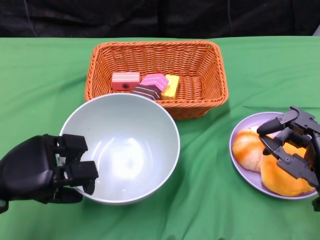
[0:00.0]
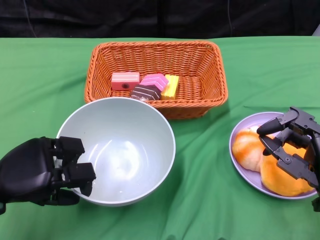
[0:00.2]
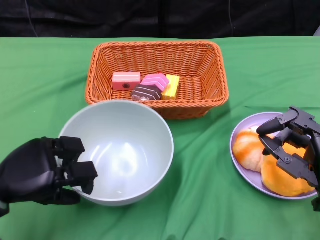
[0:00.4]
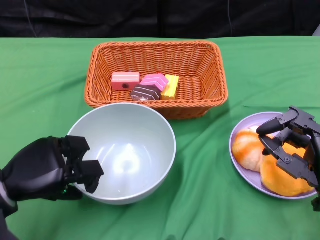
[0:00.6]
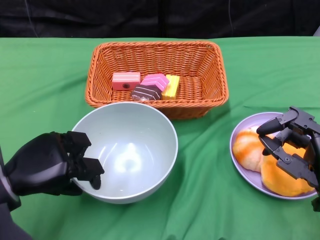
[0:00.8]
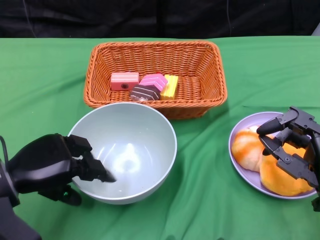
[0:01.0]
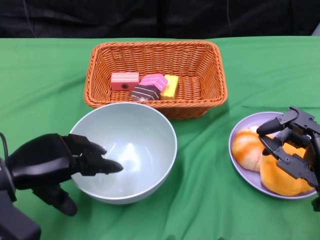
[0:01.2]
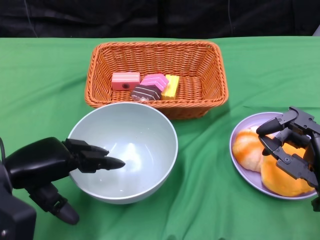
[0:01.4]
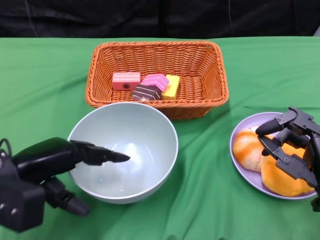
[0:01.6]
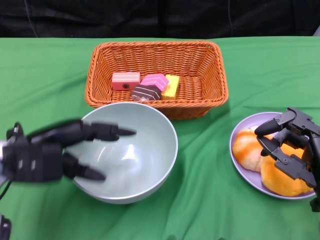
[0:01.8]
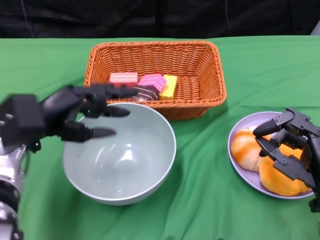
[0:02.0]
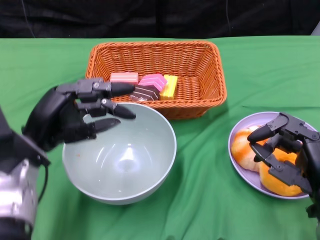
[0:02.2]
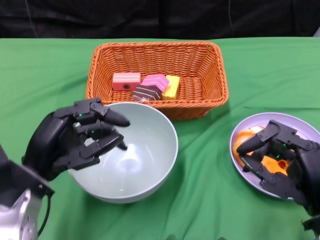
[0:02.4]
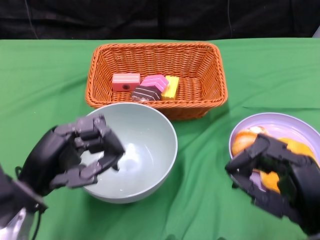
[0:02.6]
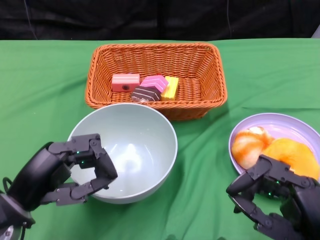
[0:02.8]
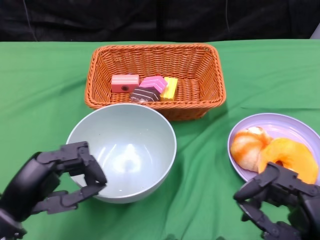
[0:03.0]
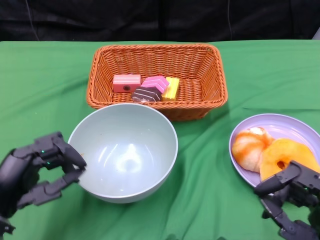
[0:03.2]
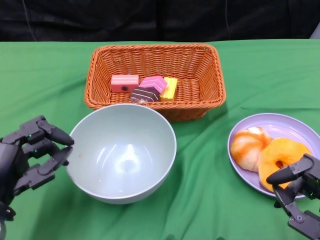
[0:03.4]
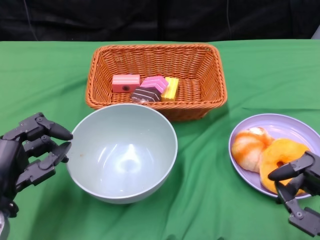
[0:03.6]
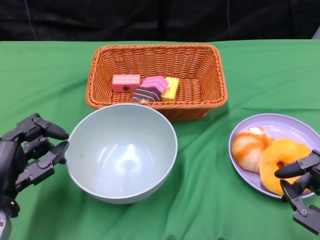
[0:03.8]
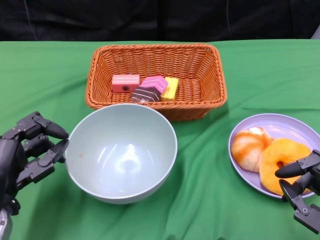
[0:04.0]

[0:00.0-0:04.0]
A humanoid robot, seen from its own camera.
0:01.4 to 0:02.6: The right hand shifts by approximately 5 cm. The left hand changes place by some 5 cm.
0:02.6 to 0:04.0: The left hand changes place by about 5 cm, while the right hand changes place by approximately 5 cm.
